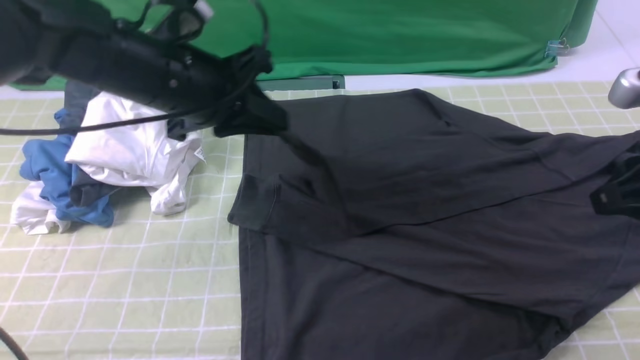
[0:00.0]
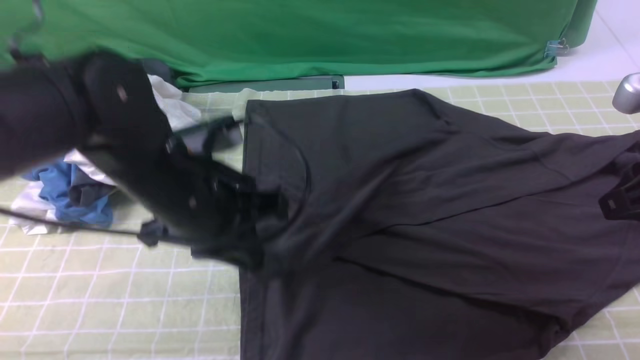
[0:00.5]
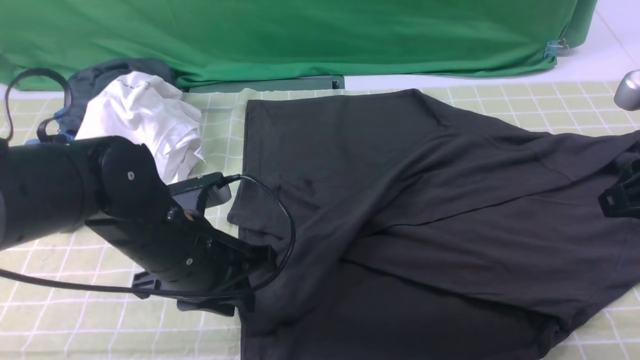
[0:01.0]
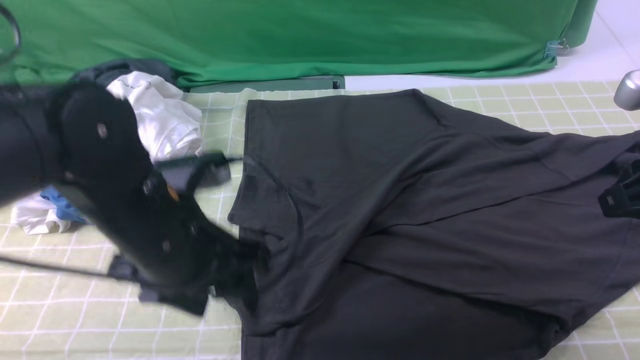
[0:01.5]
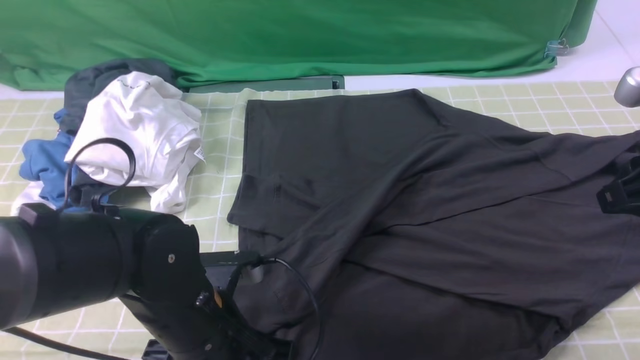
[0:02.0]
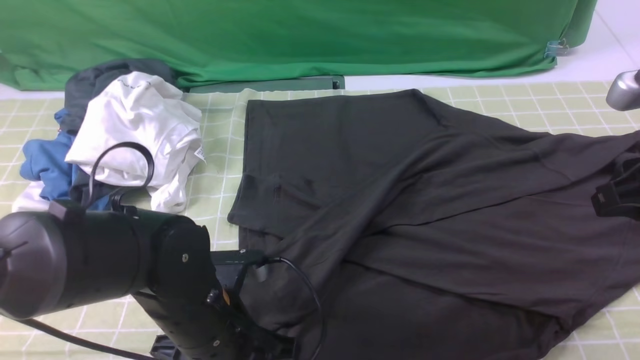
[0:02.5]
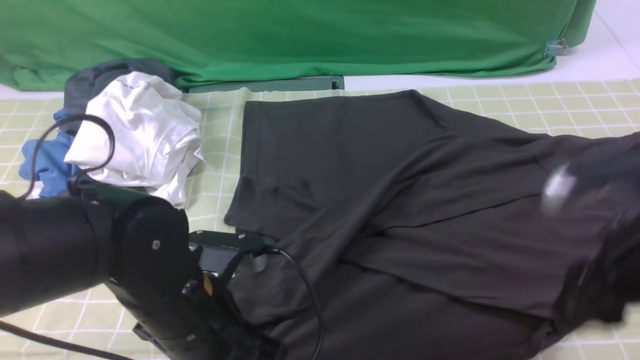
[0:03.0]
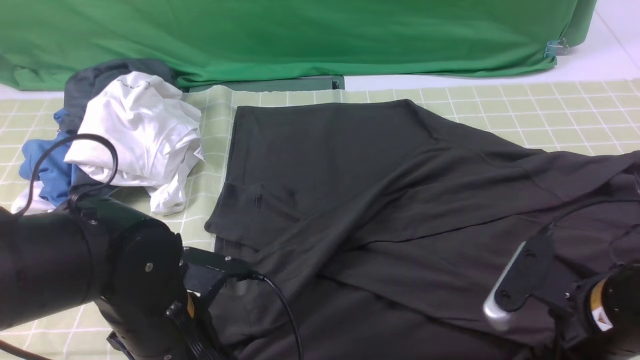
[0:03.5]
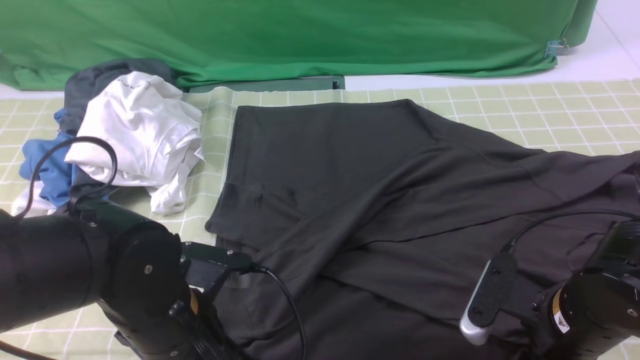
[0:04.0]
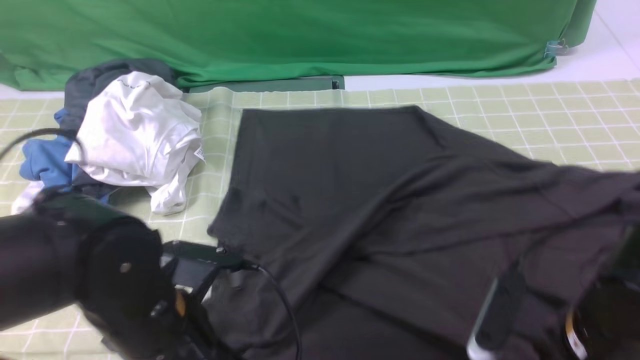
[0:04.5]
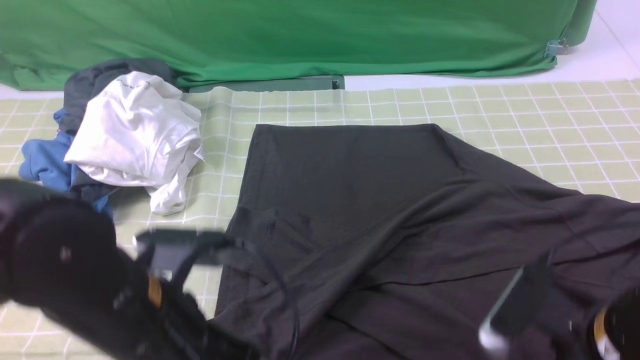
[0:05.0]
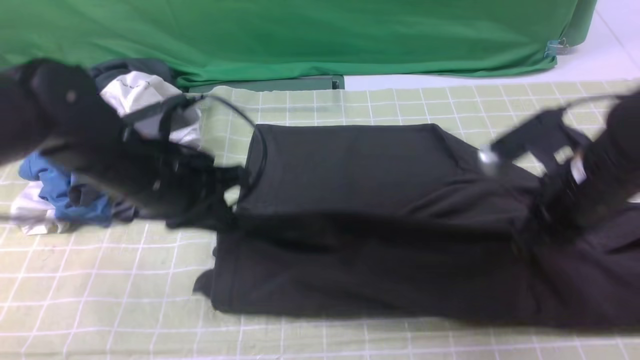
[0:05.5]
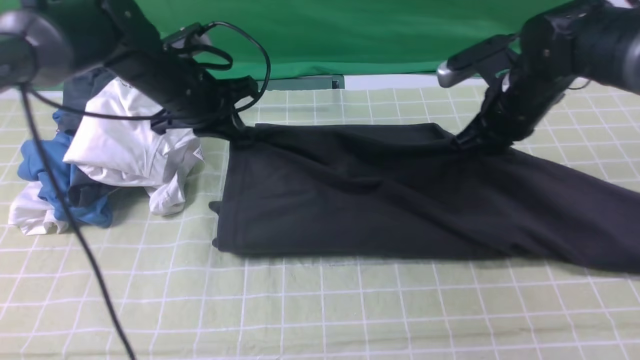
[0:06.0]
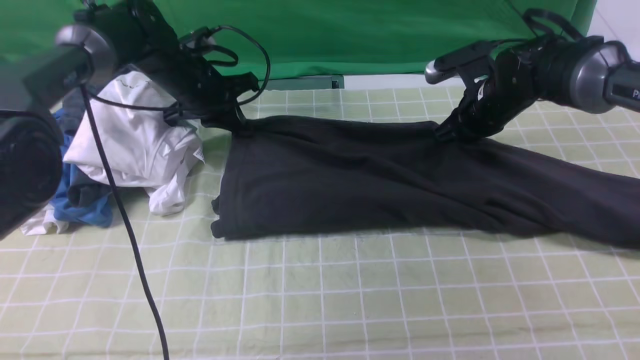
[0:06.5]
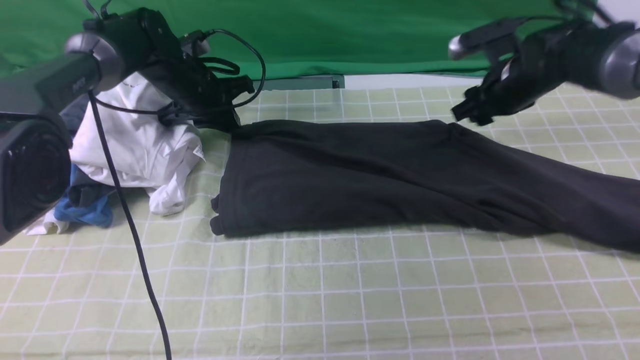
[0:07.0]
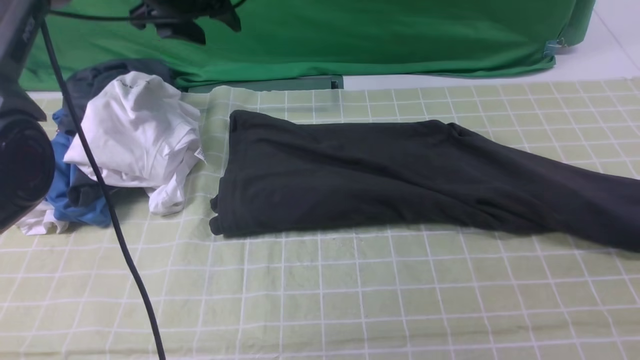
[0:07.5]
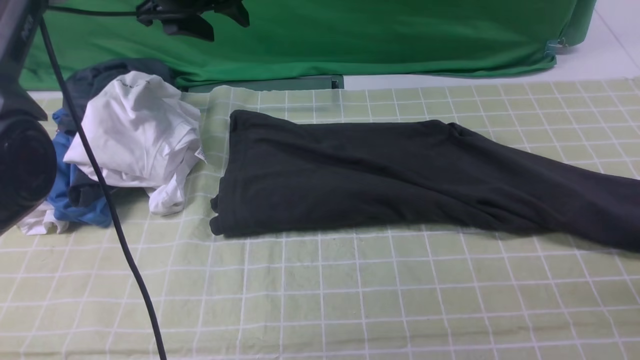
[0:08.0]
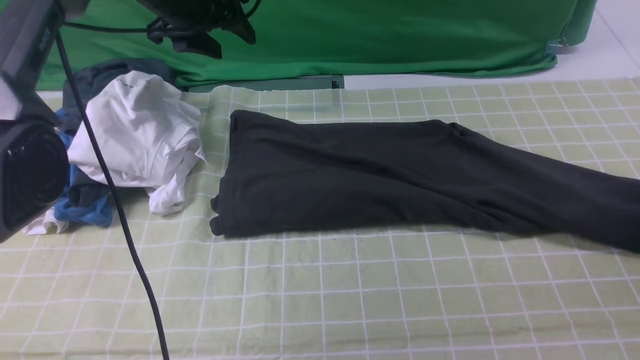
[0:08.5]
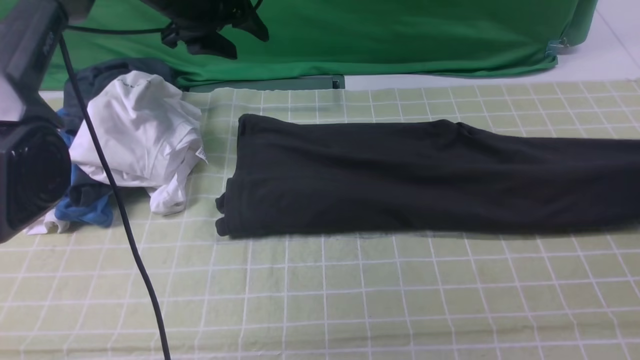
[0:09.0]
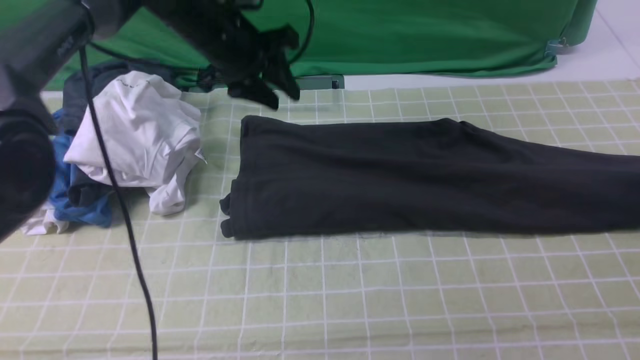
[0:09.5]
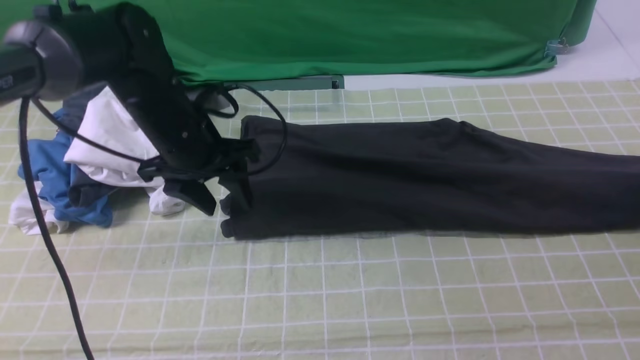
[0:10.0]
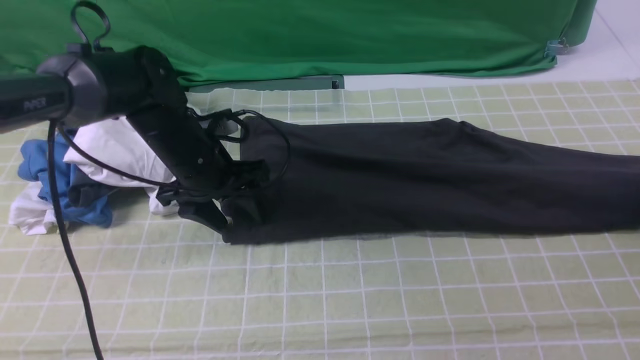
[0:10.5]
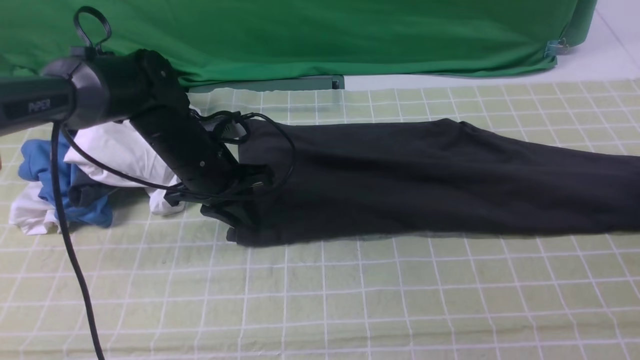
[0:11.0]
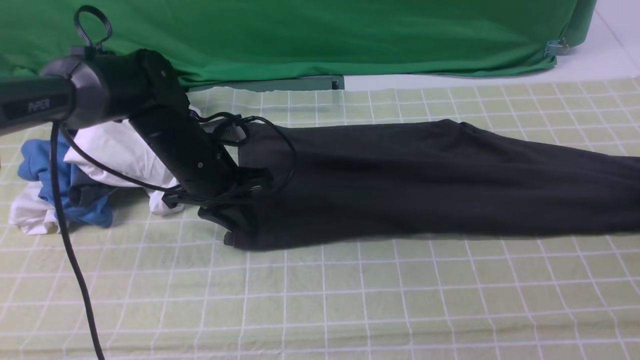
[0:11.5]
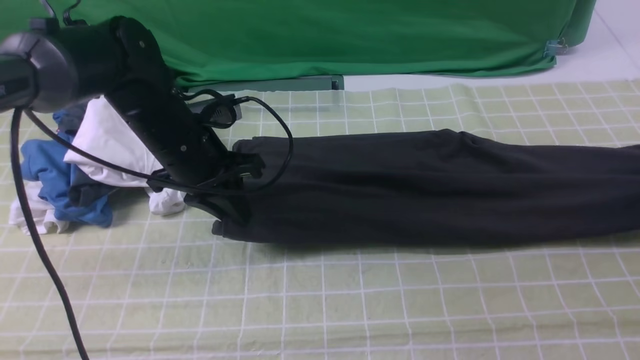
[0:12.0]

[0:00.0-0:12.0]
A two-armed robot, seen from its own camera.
Step, 0:01.5 to 0:04.0: use both arms simultaneously to clamp the lower edge of the clothing fabric.
Step, 0:04.5 to 0:07.0: use both arms to drag the lower edge of the fabric forward and fold it over the upper edge.
Step, 0:07.5 to 0:11.0: use the right arm to clamp the right edge of the fabric.
0:00.0 to 0:02.0: The left gripper is displaced backward and downward by some 20 cm, and opens its fingers.
0:02.0 to 0:04.0: The right gripper is displaced downward, to the left and backward by roughly 20 cm, while the left gripper closes its fingers.
0:04.0 to 0:06.0: Both grippers travel together forward, some 25 cm. The right gripper closes its fingers.
0:06.0 to 0:08.0: The left gripper moves upward and forward, approximately 10 cm, and opens its fingers. Meanwhile the right gripper heads to the right, covering about 25 cm, and opens up.
0:08.0 to 0:10.0: The right gripper shifts some 10 cm forward and downward, and opens; the left gripper travels backward and downward by some 15 cm.
0:10.0 to 0:12.0: The right gripper closes up; the left gripper closes.

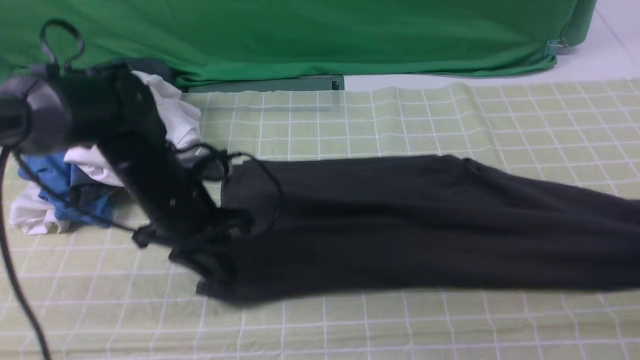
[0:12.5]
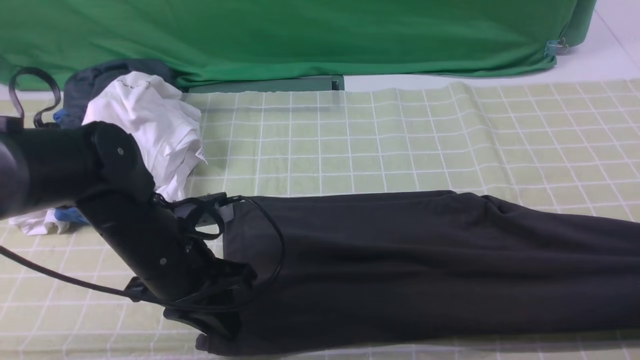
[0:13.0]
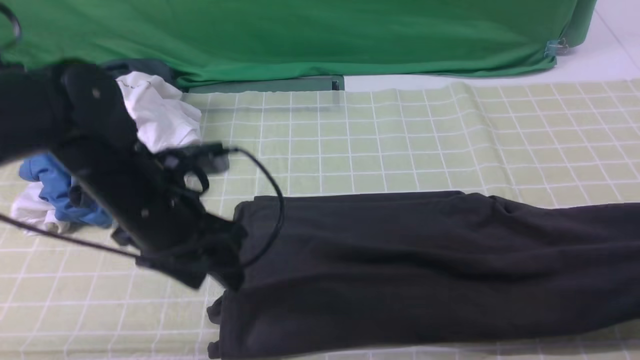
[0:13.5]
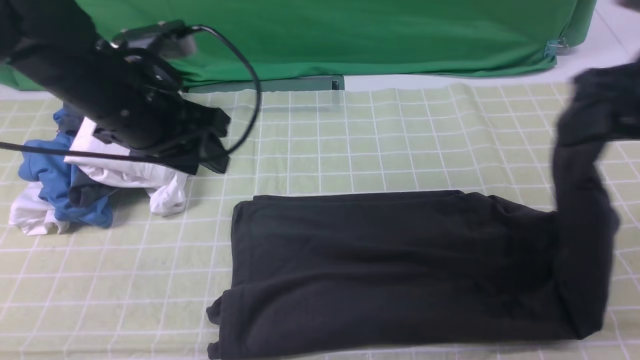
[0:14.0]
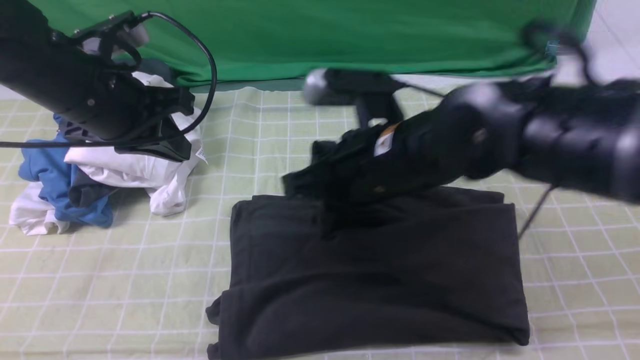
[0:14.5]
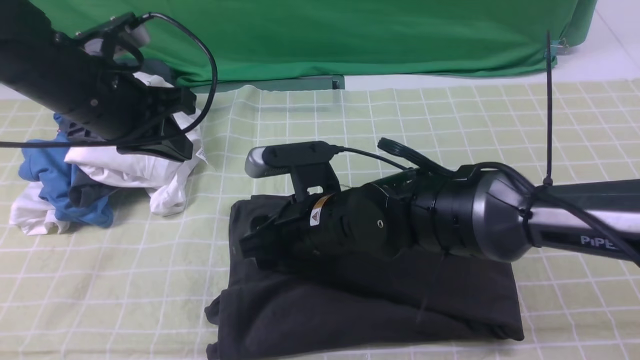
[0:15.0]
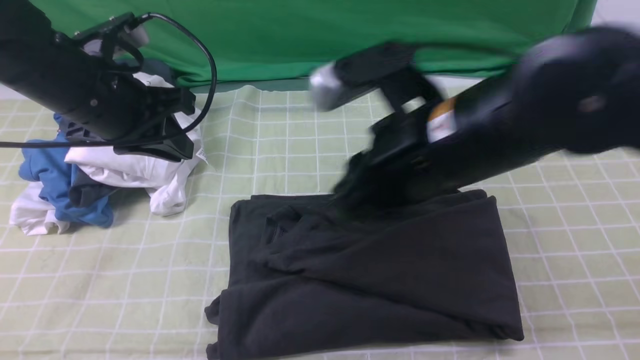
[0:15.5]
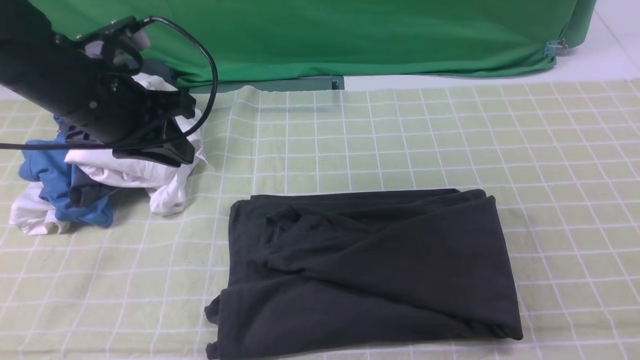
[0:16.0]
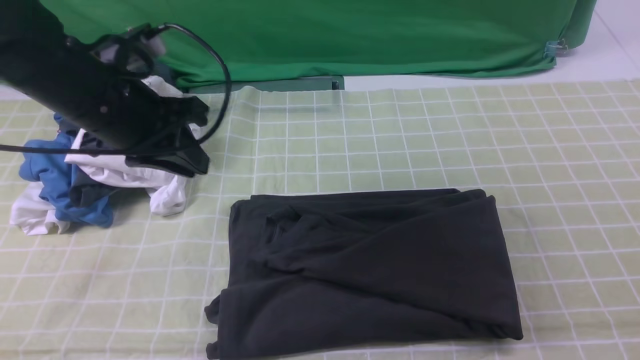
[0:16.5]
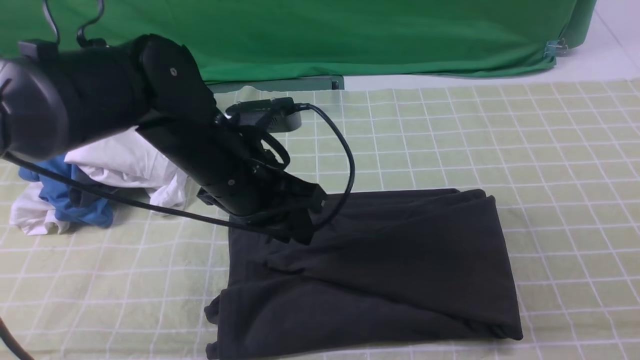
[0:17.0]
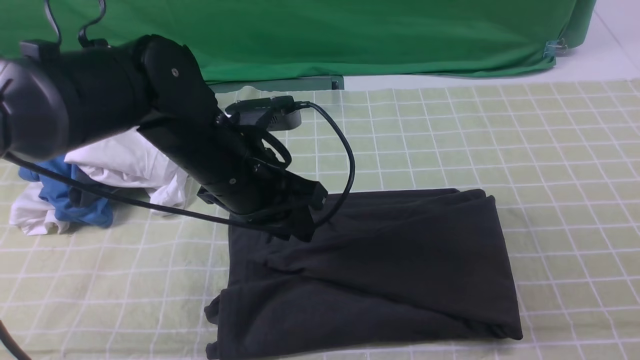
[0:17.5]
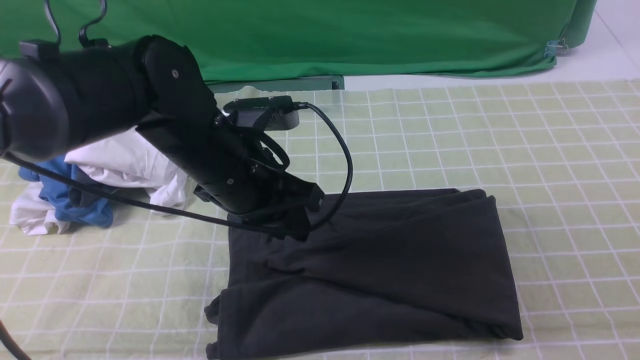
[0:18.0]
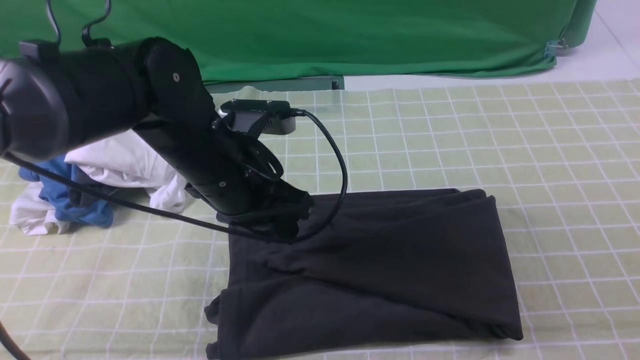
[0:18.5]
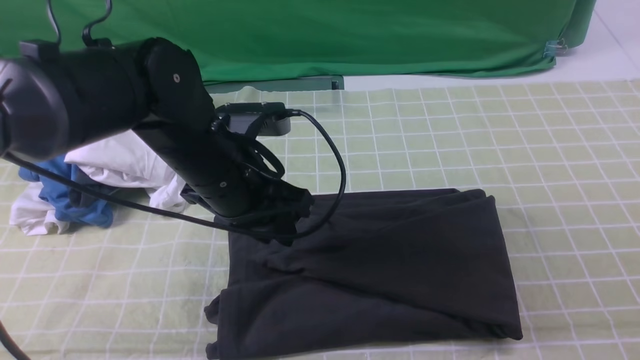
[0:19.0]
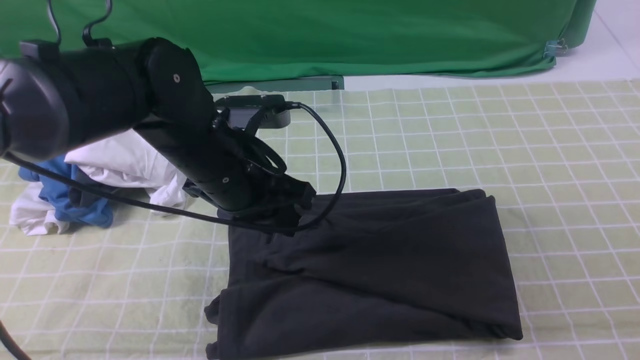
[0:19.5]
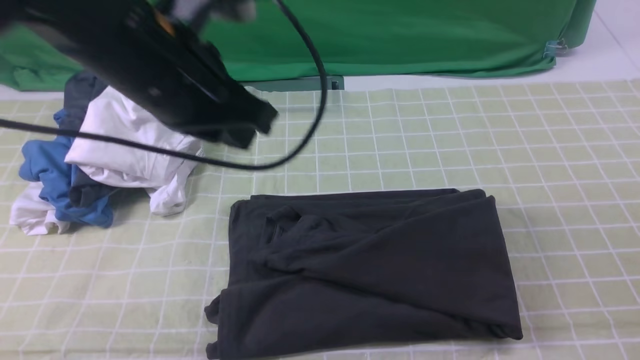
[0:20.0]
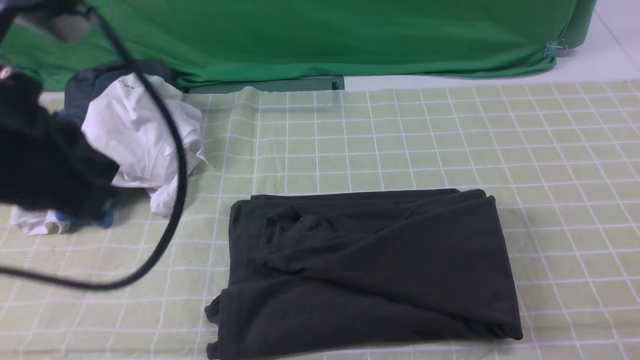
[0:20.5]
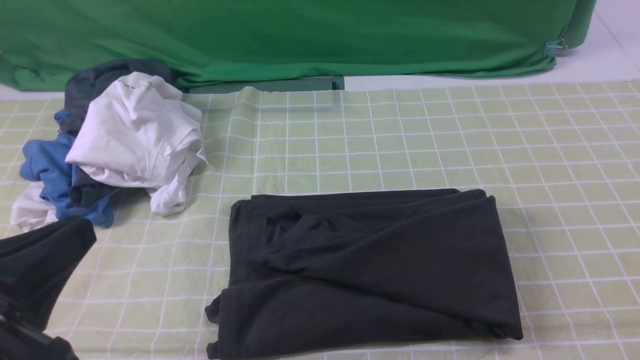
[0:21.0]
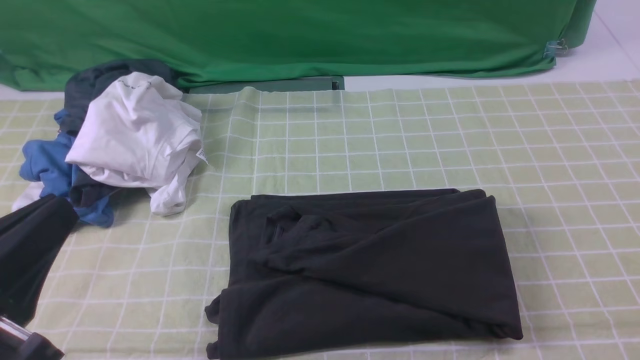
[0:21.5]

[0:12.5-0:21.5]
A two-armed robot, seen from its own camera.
Step, 0:12.5 to 0:15.0: use the right arm to drag the right edge of the fabric to the left and folds it over the left edge.
0:12.5 to 0:14.5: The left gripper travels upward and to the left by some 15 cm, and opens, then closes once more, while the right gripper heads to the left, covering some 40 cm.
0:14.5 to 0:17.0: The left gripper shifts approximately 10 cm to the right, and opens. The right gripper shifts some 35 cm to the right and backward, and opens and closes again.
0:17.0 to 0:19.5: The right gripper goes approximately 15 cm downward.
0:19.5 to 0:21.5: The left gripper moves backward and to the left, some 25 cm, and closes.
